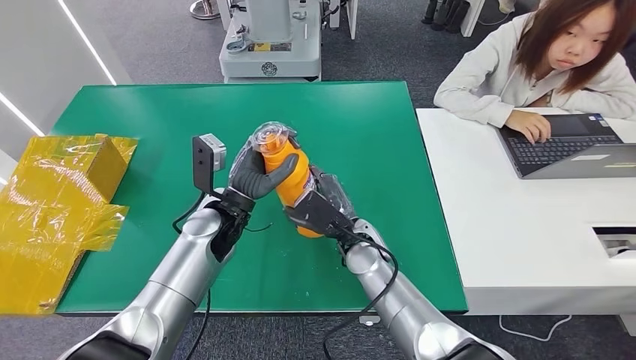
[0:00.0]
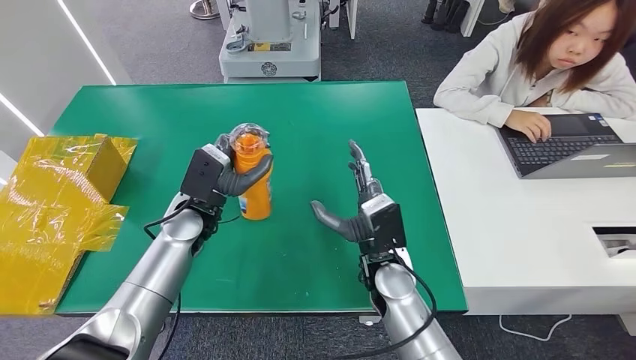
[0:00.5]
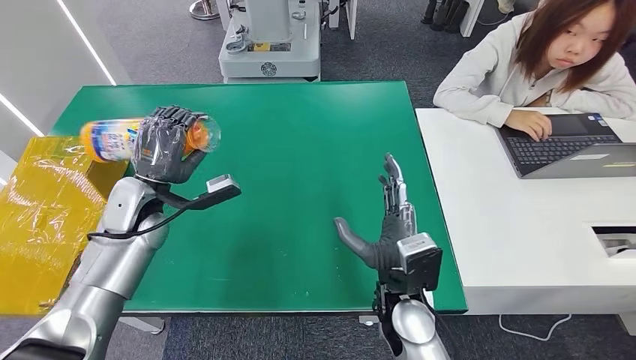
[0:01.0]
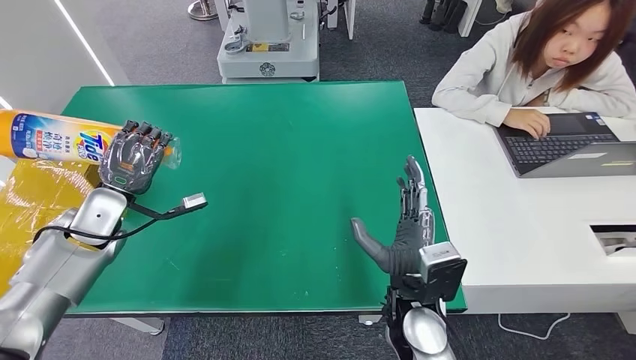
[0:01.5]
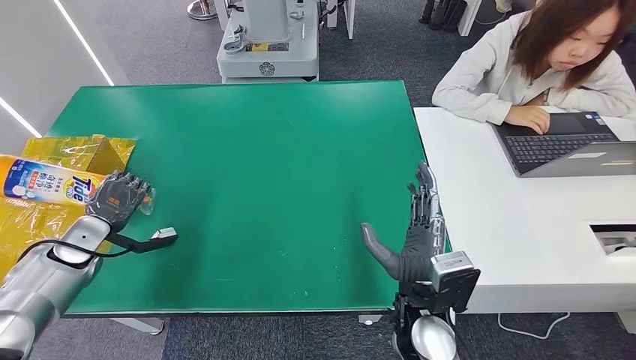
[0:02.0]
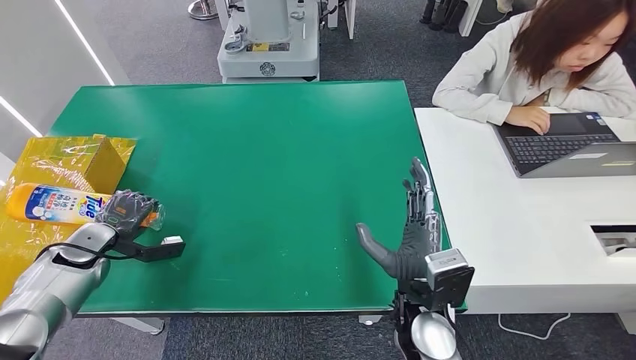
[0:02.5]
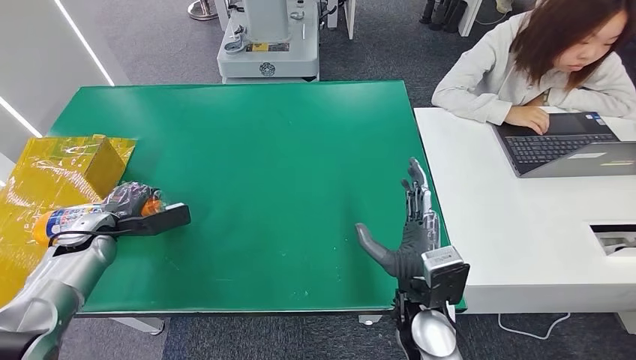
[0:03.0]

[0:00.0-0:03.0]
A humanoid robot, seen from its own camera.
Step, 0:00.0 to 0:03.0: Turn the bottle to the front side.
0:01.5 to 0:03.0: The left hand travels to the left and downward by some 10 cm.
